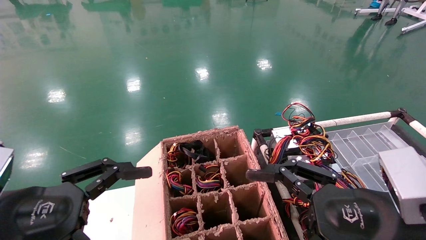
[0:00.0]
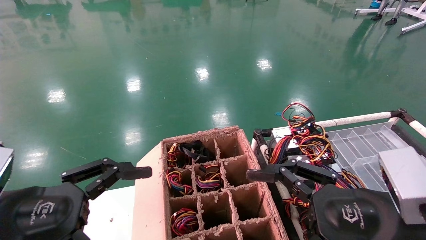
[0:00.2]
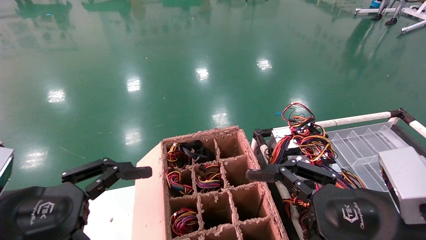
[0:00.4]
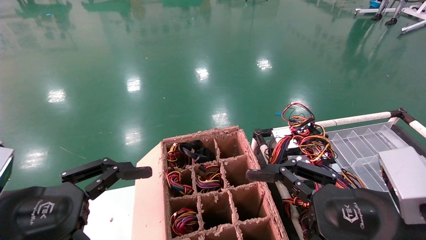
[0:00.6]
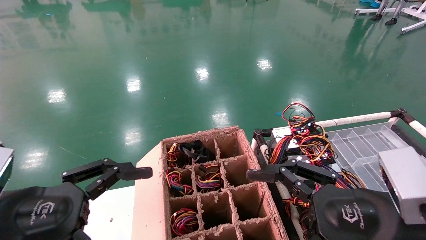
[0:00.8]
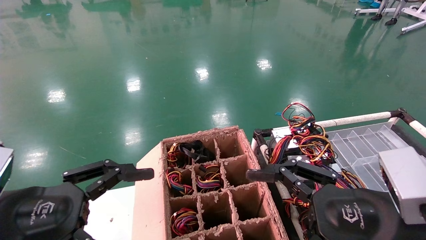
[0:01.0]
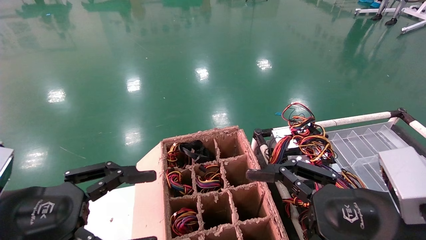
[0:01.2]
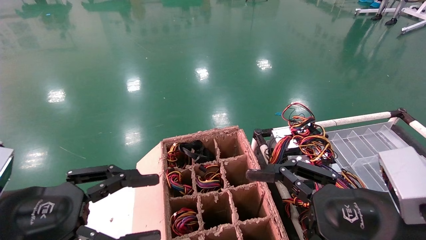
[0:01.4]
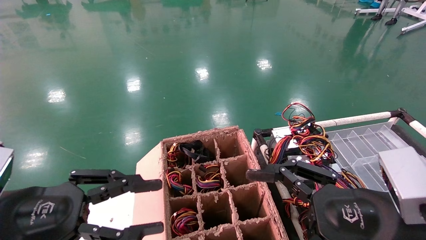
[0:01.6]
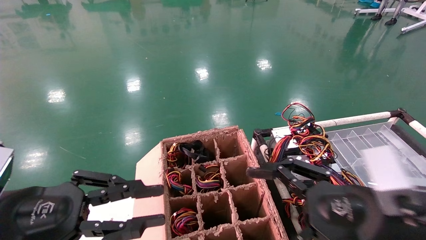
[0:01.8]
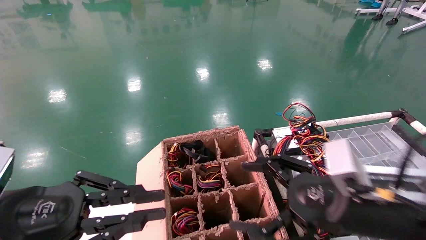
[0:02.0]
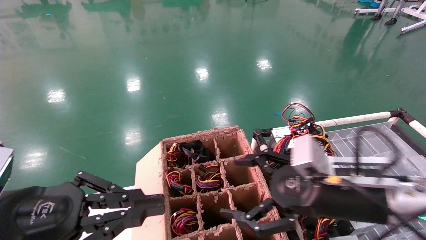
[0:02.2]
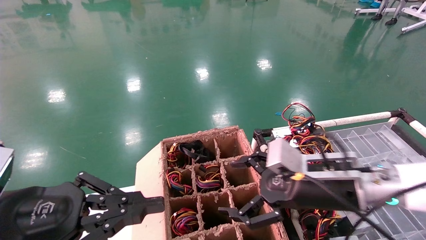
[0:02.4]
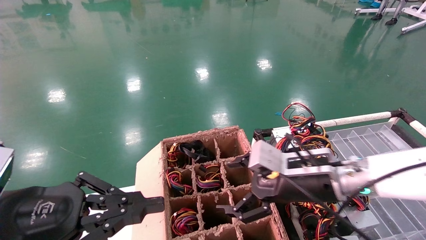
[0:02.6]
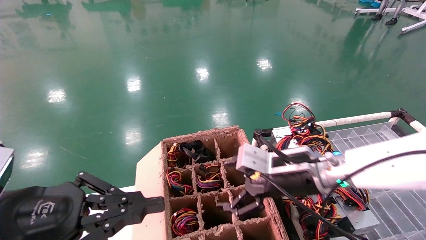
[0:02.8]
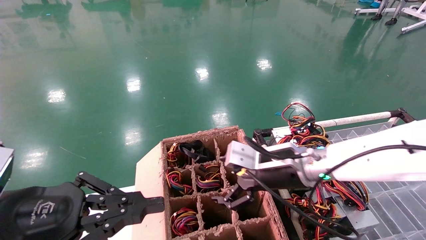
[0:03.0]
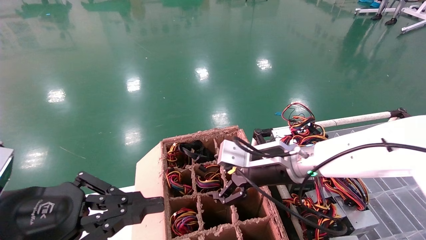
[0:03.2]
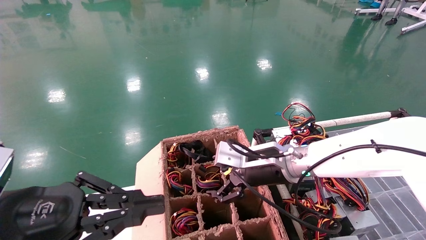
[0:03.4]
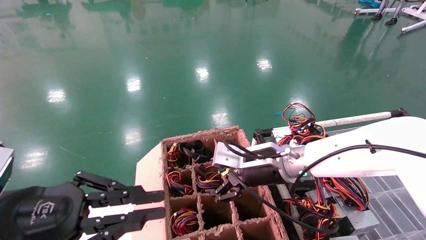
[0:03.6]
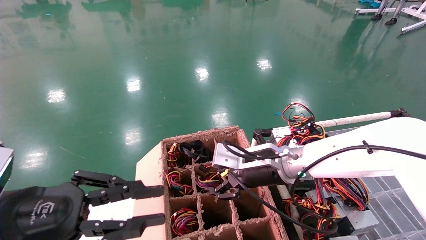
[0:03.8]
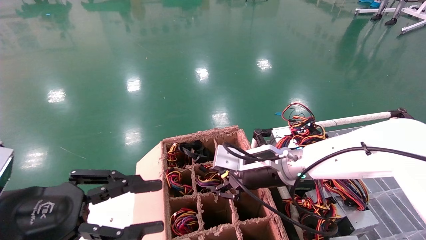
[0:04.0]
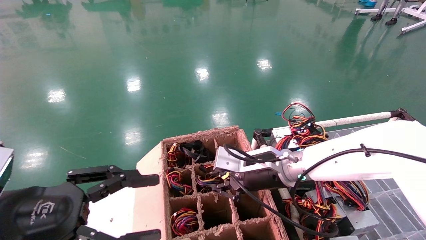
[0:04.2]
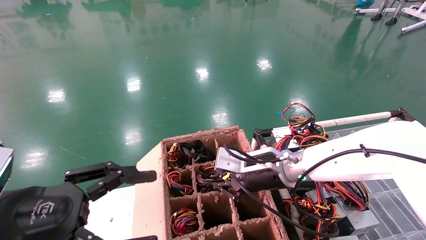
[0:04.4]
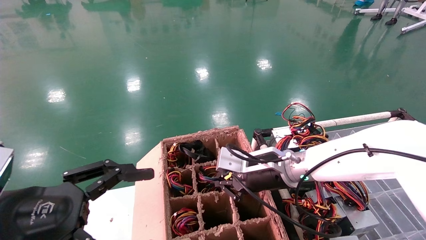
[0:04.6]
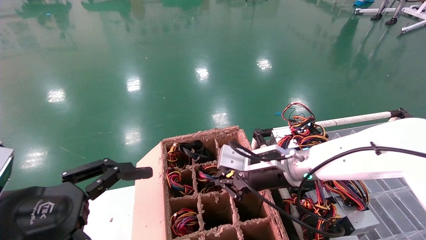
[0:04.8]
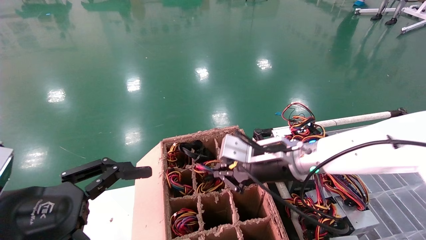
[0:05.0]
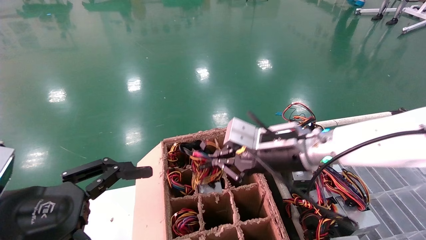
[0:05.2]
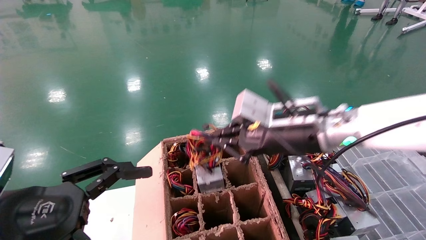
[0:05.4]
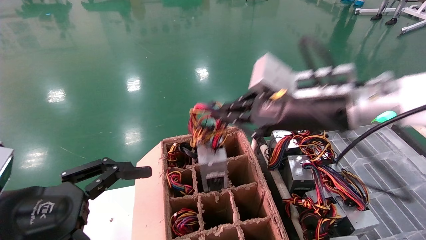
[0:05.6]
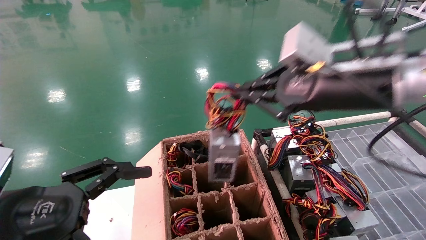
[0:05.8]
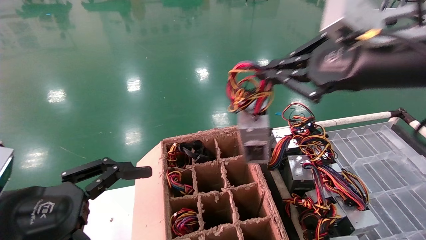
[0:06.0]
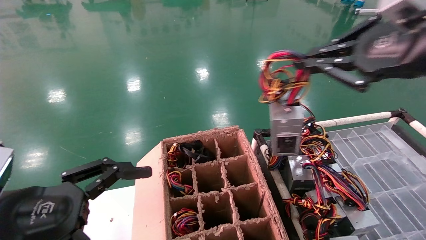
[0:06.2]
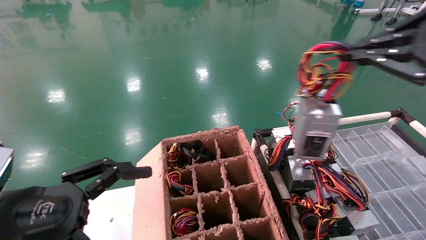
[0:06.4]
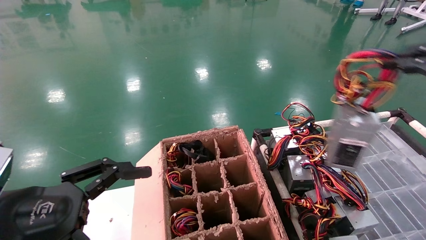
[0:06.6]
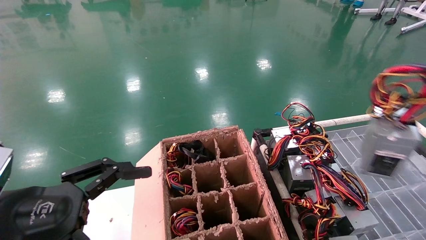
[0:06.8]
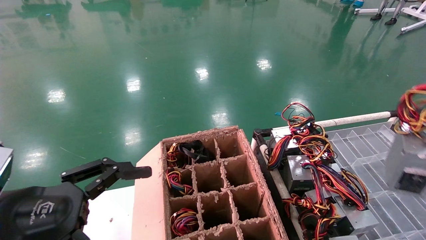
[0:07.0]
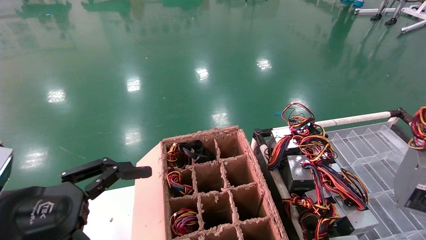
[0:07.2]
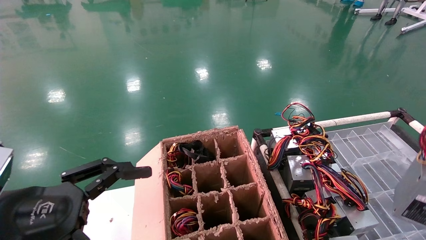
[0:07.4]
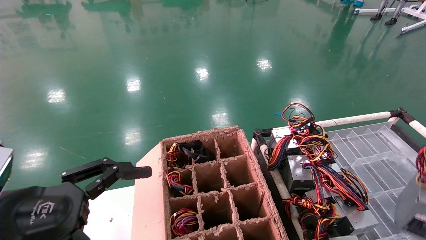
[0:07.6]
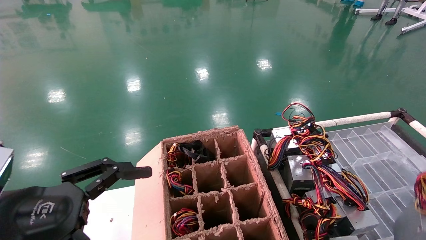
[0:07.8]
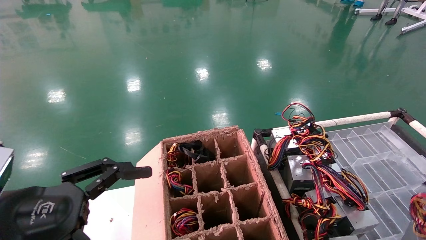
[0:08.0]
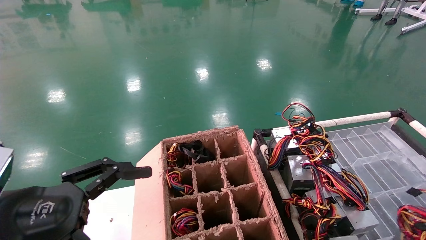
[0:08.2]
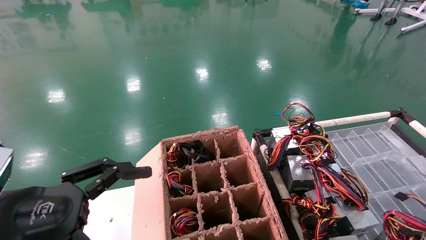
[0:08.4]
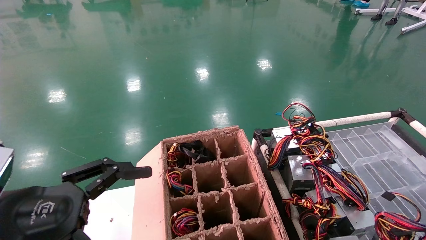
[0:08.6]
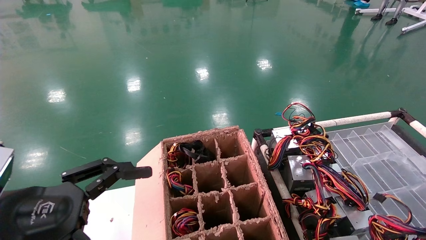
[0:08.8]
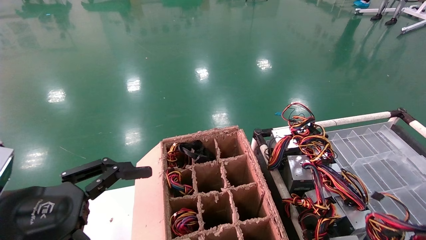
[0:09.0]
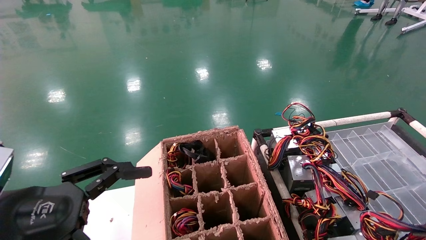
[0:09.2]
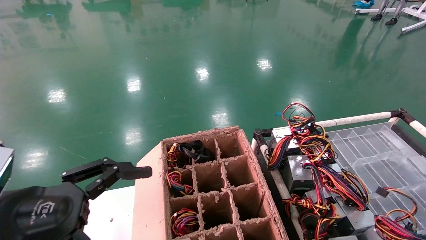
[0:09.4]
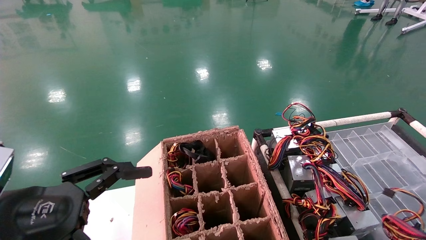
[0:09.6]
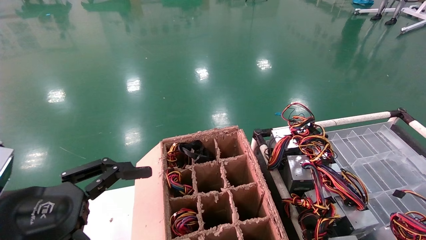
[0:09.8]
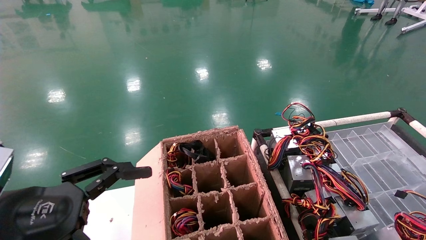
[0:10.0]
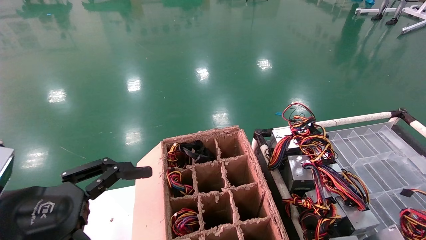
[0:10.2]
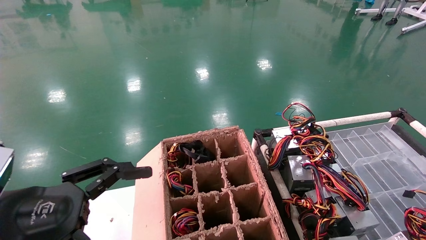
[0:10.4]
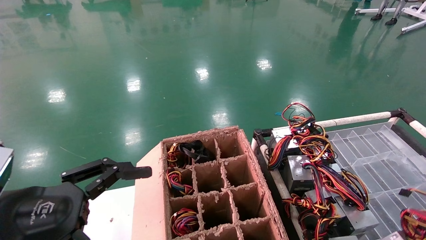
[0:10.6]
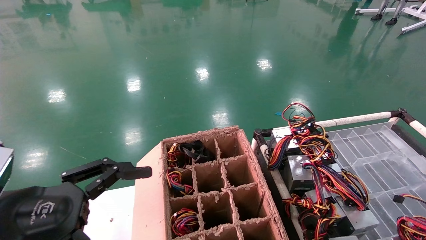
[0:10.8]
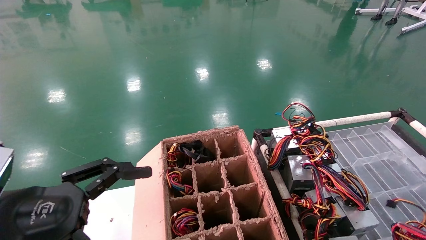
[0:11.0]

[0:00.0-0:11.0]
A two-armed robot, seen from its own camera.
Step, 0:01.4 to 0:04.6: Grab and lift the power supply from the large box.
0:00.0 to 0:01.6: The left gripper closes.
0:01.6 to 0:03.2: The right gripper shifts approximately 20 cm forward and to the left, while the left gripper closes.
0:03.2 to 0:04.8: The left gripper opens. Meanwhile the right gripper closes its fingers.
0:04.8 to 0:06.2: The right gripper heads upward, backward and to the right, covering about 30 cm.
0:06.2 to 0:07.8: The right gripper is displaced to the right, downward and backward by approximately 25 cm.
0:07.8 to 0:09.4: The right gripper moves some 5 cm.
0:09.4 to 0:11.0: There are only small adjustments of the grippers.

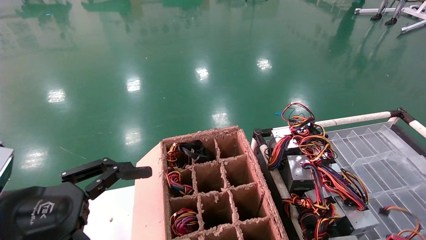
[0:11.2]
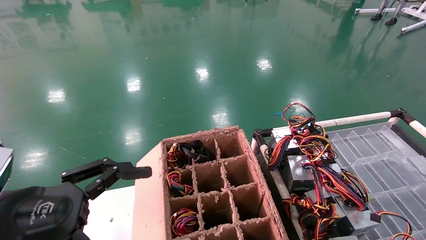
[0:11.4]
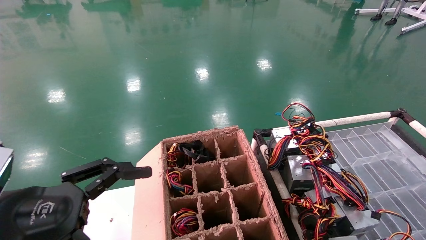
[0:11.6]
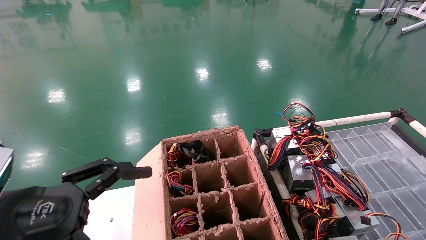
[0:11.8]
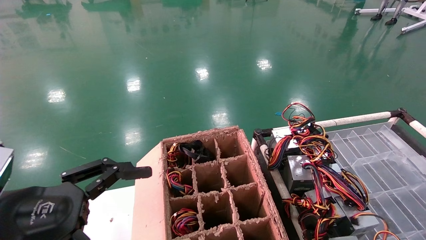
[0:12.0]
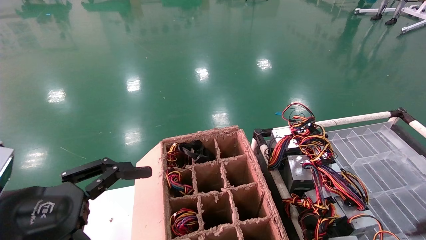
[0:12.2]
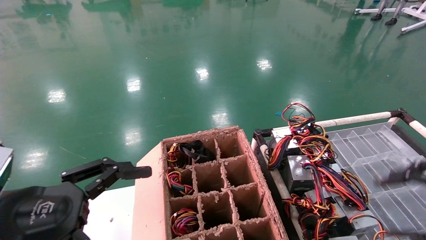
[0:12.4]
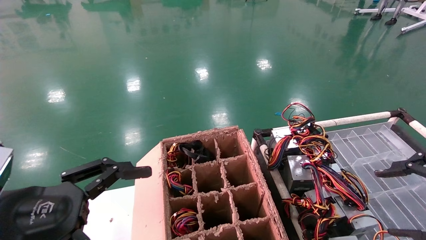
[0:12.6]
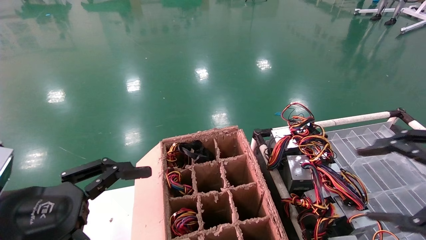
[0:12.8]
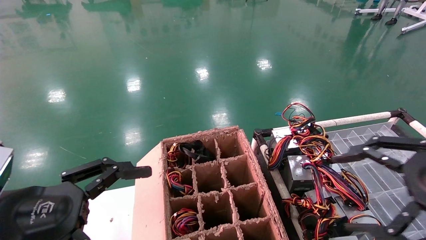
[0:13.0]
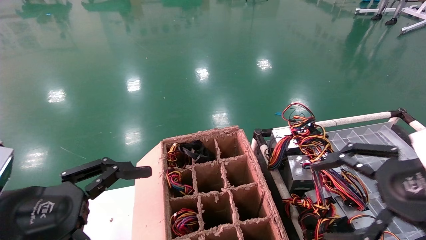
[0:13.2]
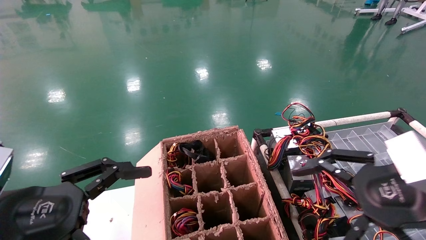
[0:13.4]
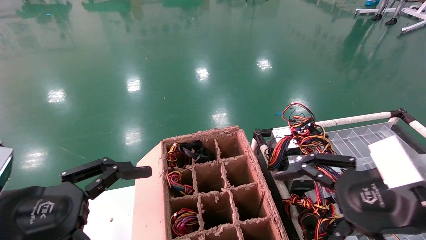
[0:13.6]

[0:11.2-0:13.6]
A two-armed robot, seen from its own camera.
0:11.2 to 0:12.4: The right gripper opens.
0:12.4 to 0:13.6: The right gripper is displaced to the left by approximately 10 cm, and opens up.
